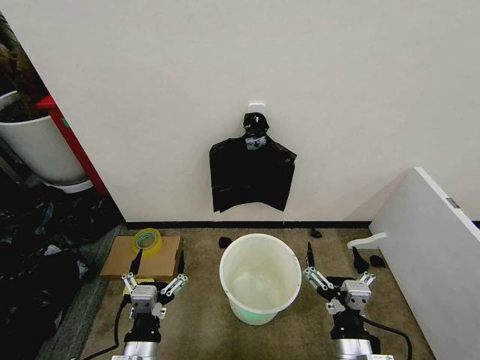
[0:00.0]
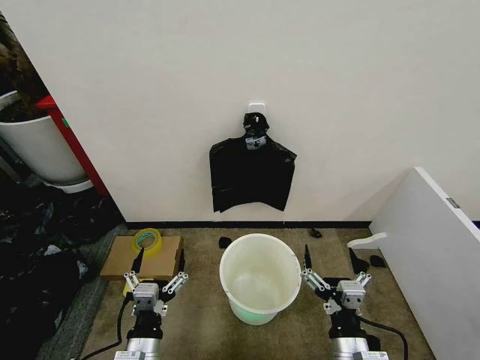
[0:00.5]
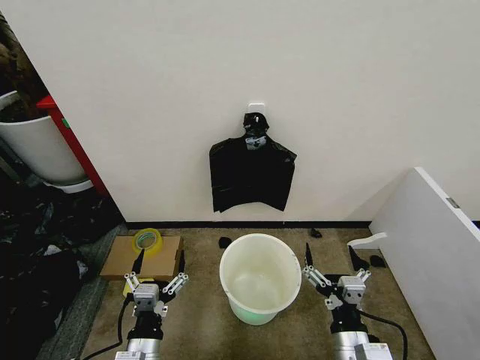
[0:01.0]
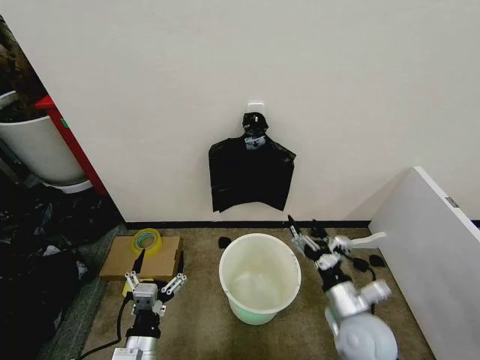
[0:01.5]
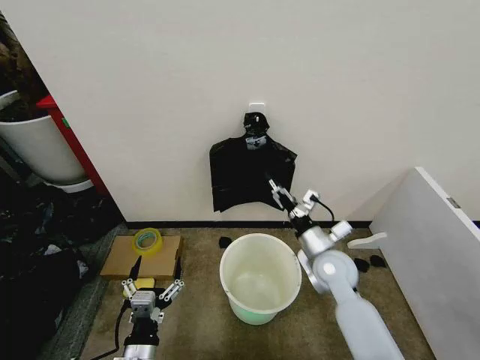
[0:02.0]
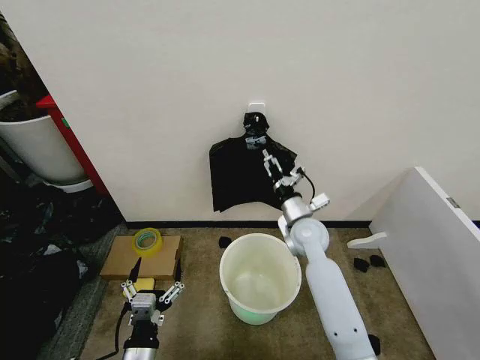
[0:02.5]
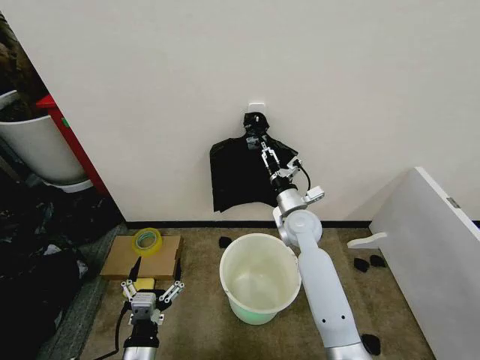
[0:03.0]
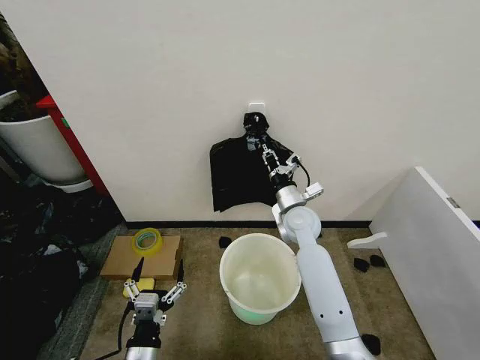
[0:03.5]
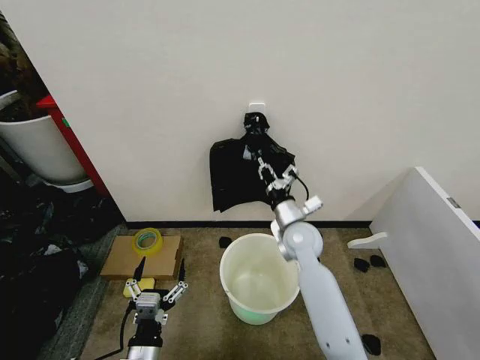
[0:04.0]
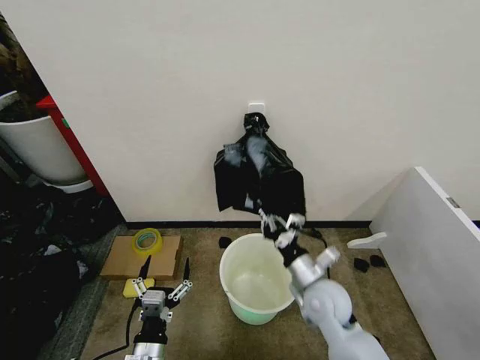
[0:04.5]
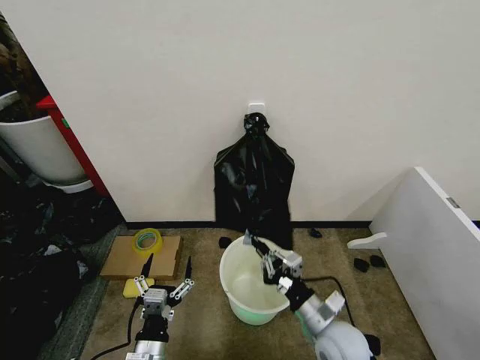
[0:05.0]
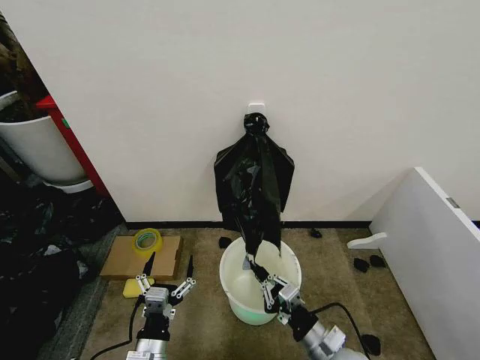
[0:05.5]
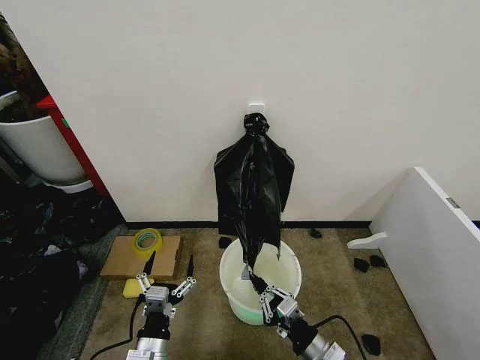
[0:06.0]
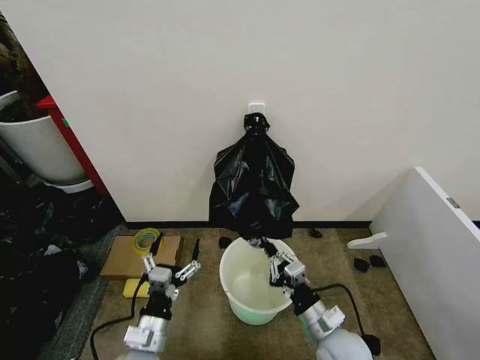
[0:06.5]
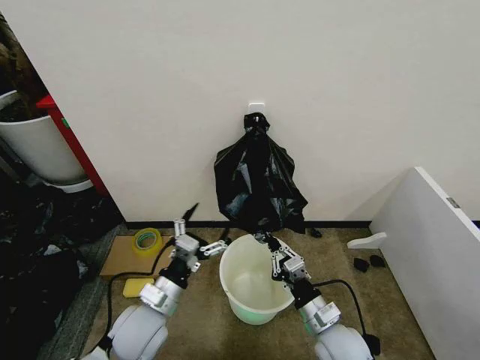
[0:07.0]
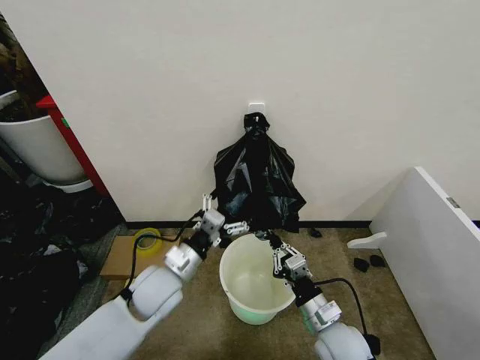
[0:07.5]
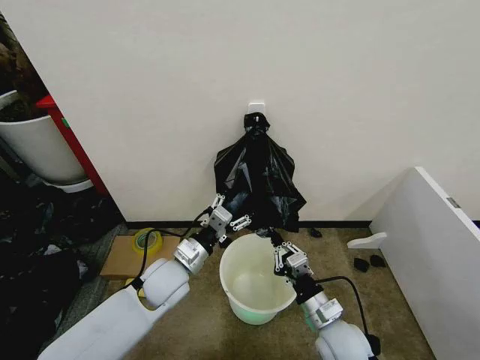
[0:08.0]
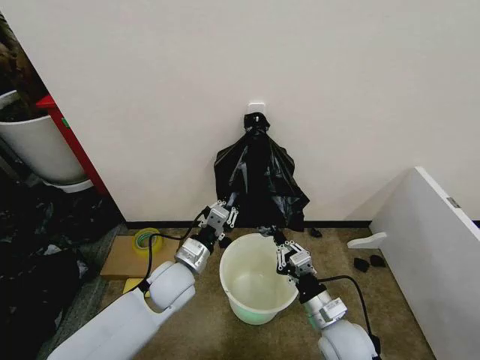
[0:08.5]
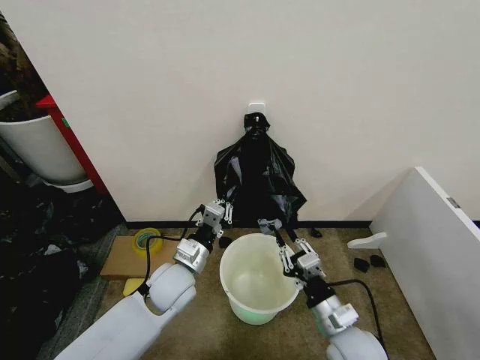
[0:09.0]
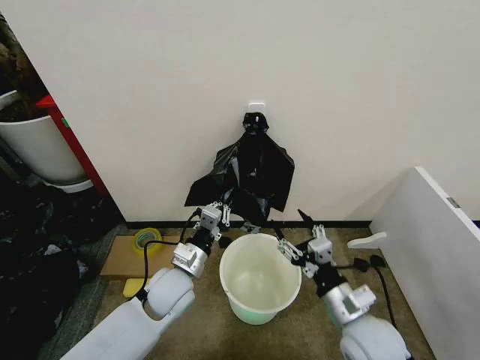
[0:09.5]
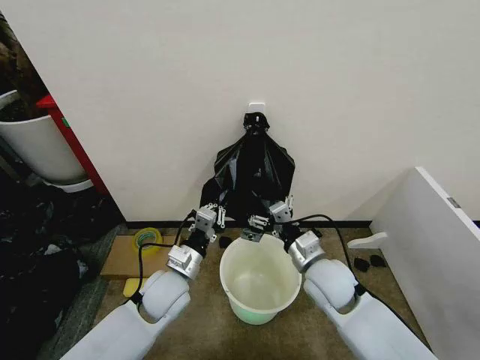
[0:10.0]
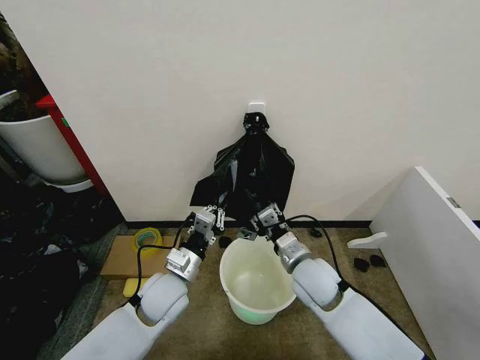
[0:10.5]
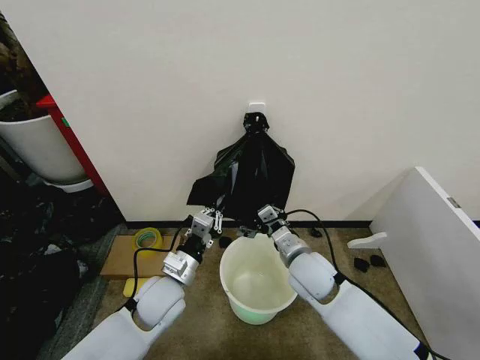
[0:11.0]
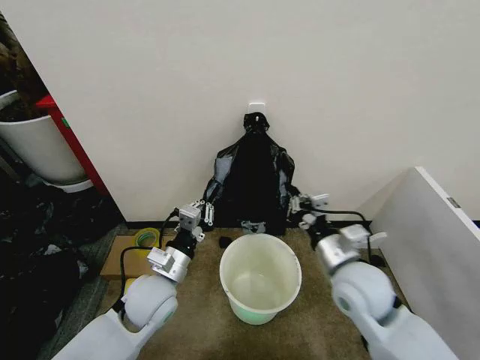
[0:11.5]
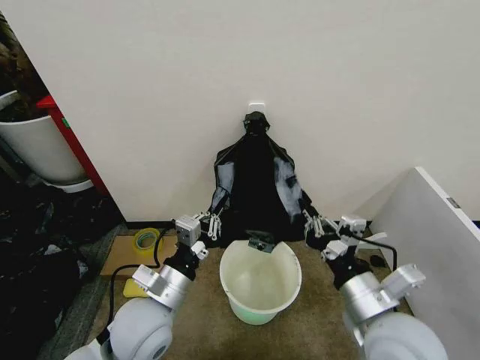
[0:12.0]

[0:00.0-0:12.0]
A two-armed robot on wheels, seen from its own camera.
Task of the whole recording: Place the garbage bag over the trash bin.
0:02.0 to 0:04.0: The right gripper travels forward and to the left by approximately 10 cm, and closes.
0:04.0 to 0:06.0: The right gripper heads backward, covering about 25 cm.
0:06.0 to 0:08.0: The right gripper is displaced forward by roughly 5 cm. Meanwhile the left gripper goes roughly 20 cm forward and upward.
0:08.0 to 0:10.0: The left gripper closes its fingers, while the right gripper shifts about 10 cm forward and upward, and opens its fingers.
0:10.0 to 0:12.0: The left gripper travels backward and upward by about 10 cm; the right gripper heads backward and upward, covering some 15 cm, and closes.

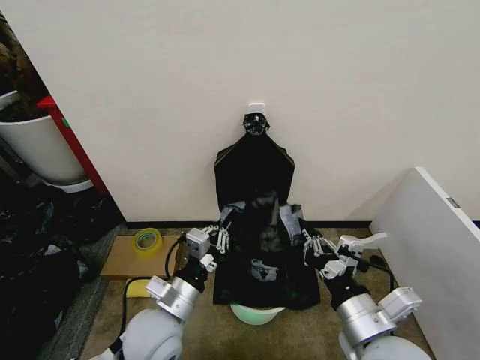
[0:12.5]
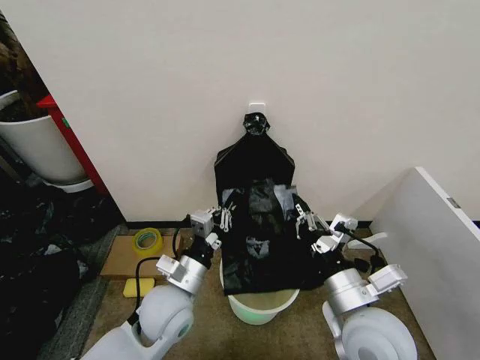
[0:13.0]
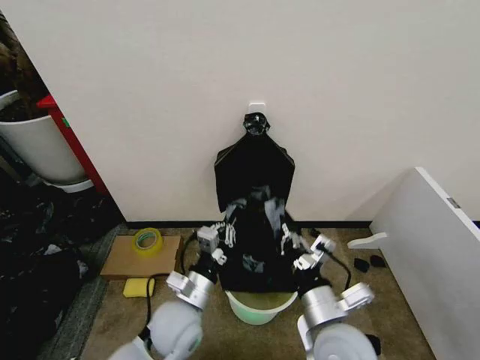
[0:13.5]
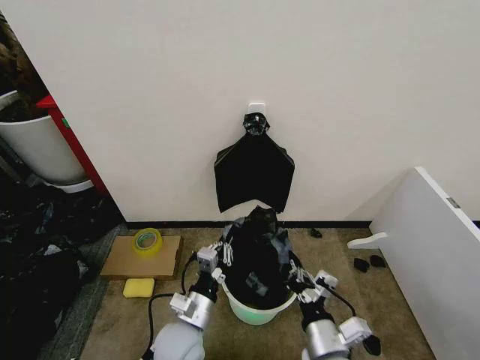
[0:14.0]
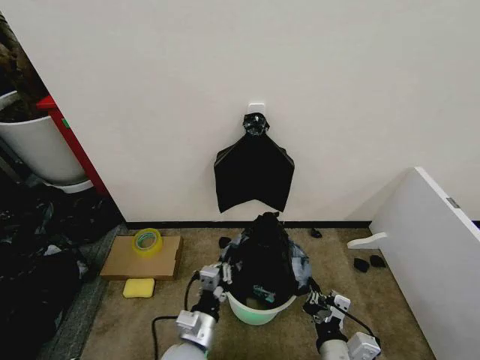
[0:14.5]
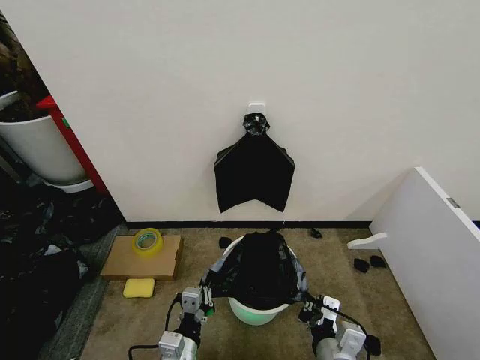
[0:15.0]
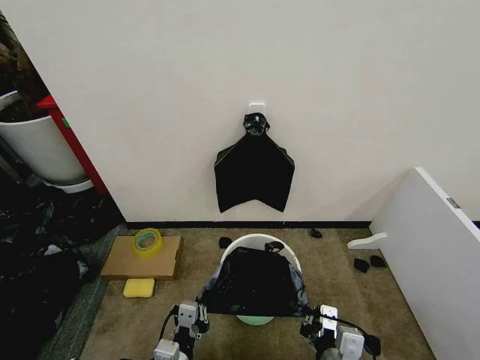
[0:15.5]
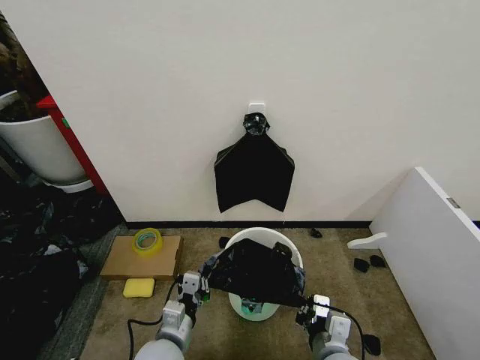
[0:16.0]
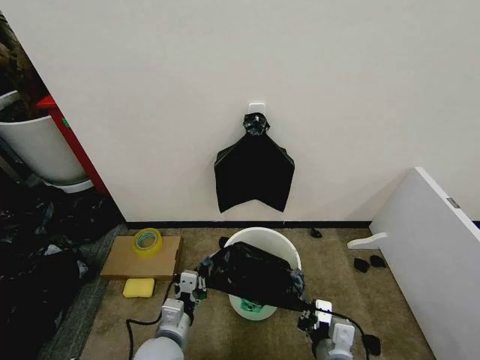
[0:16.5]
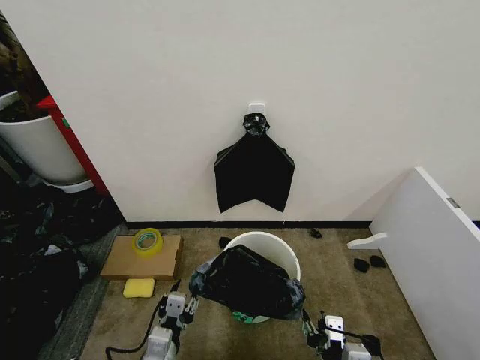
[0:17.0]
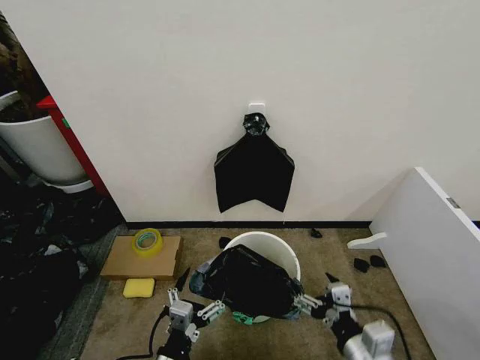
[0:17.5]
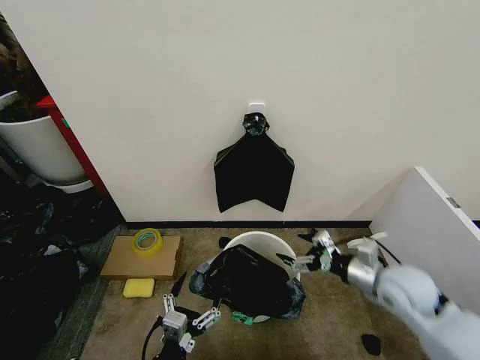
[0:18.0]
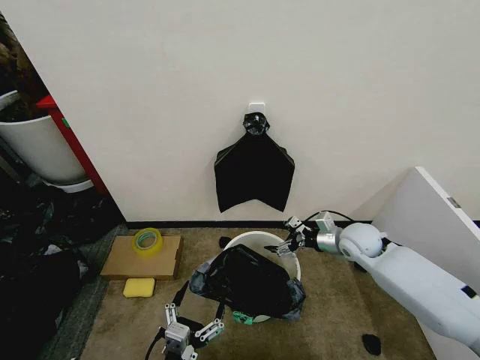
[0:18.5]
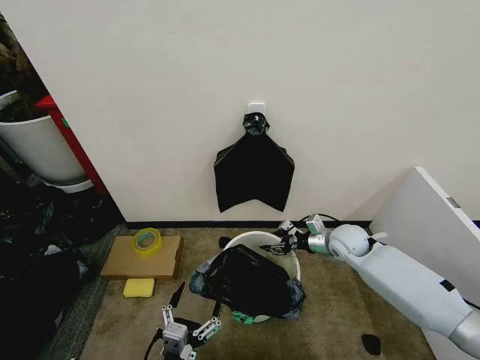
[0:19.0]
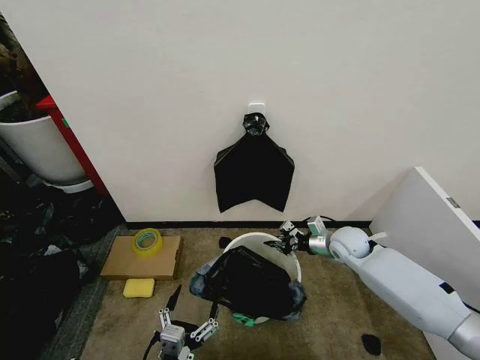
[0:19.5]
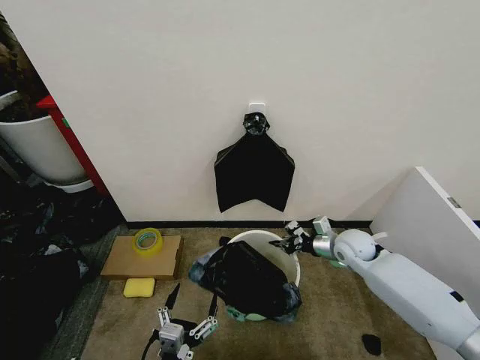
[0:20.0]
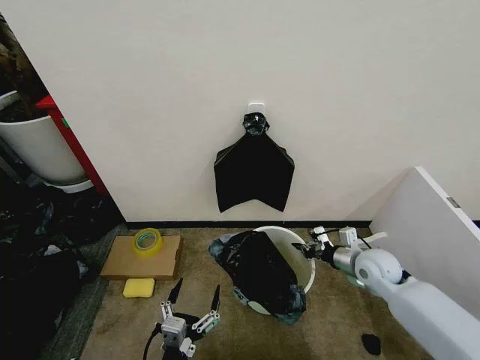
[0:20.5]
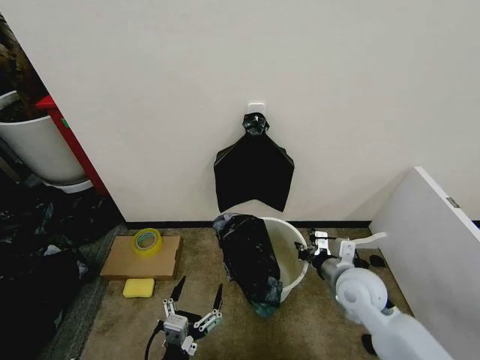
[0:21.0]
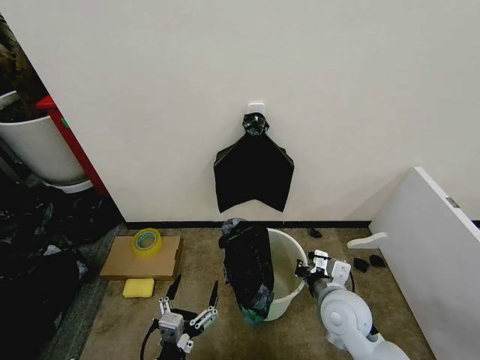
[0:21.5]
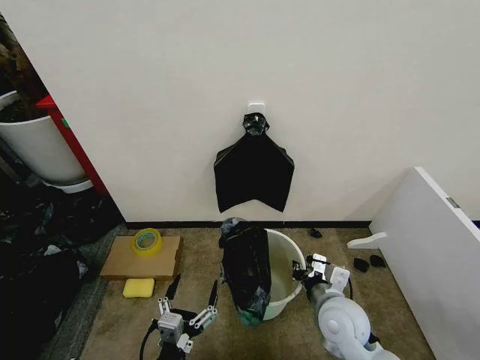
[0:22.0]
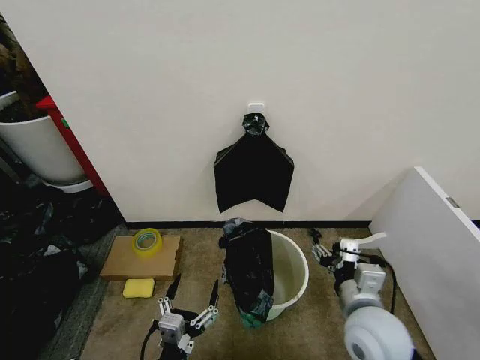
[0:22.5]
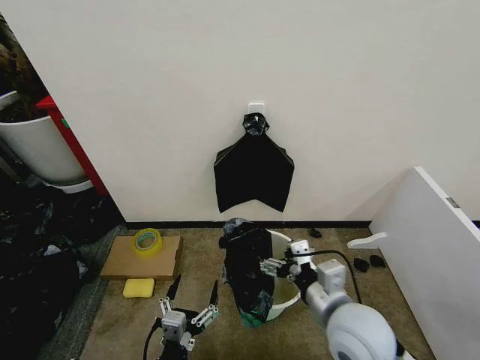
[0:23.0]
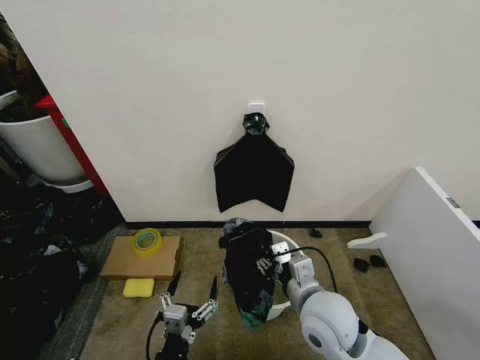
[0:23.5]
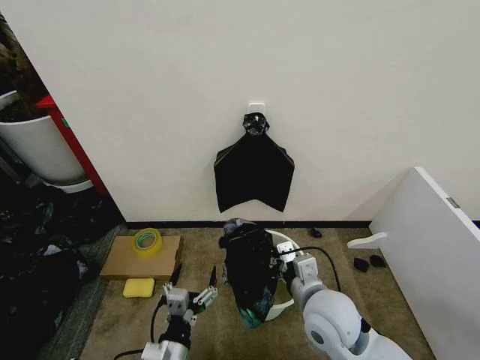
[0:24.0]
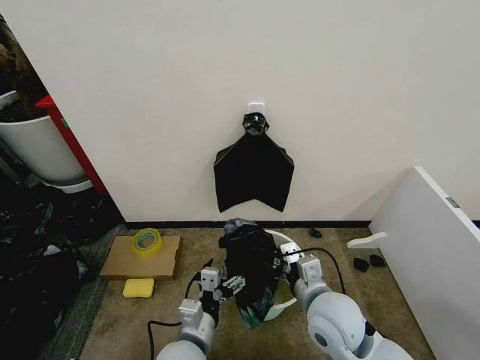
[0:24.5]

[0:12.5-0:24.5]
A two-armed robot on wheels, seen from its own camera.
Task of the whole recording: Place the garbage bag over the trash bin.
0:12.5 to 0:14.5: The two grippers go roughly 10 cm downward.
0:14.5 to 0:16.5: The left gripper is displaced to the left by approximately 5 cm, and moves about 5 cm backward and comes back.
0:16.5 to 0:18.5: The right gripper travels forward by approximately 30 cm, and opens; the left gripper moves backward, roughly 15 cm, and opens up.
0:18.5 to 0:20.5: The right gripper is displaced backward by about 5 cm, and closes.
0:20.5 to 0:22.5: The right gripper moves backward, to the left and upward, about 20 cm, and opens its fingers.
0:22.5 to 0:24.5: The left gripper goes some 10 cm forward. The right gripper heads to the left, covering roughly 5 cm, and closes.

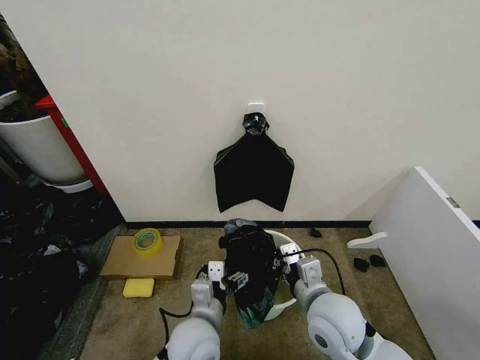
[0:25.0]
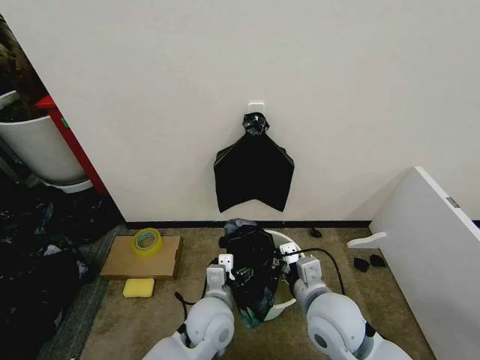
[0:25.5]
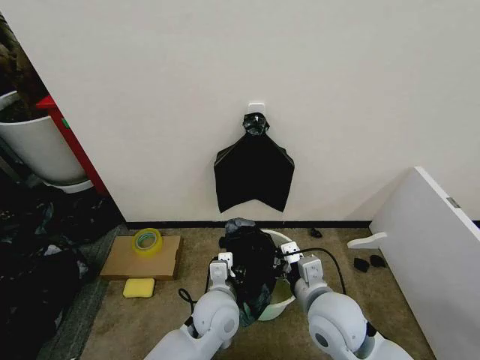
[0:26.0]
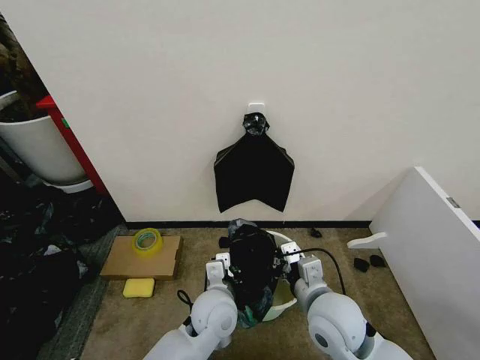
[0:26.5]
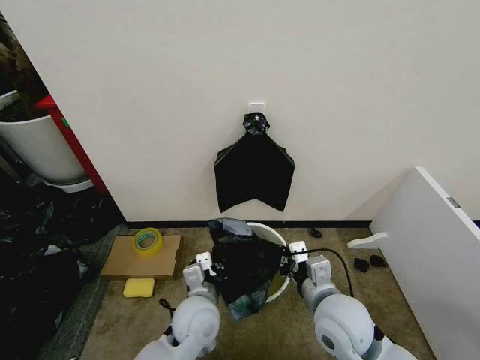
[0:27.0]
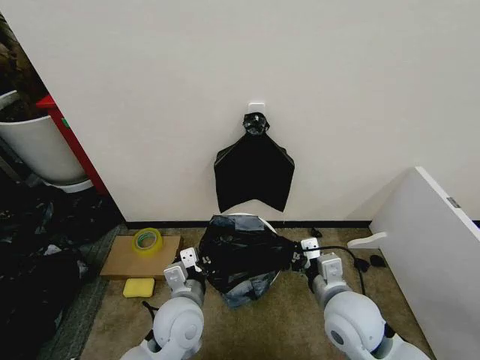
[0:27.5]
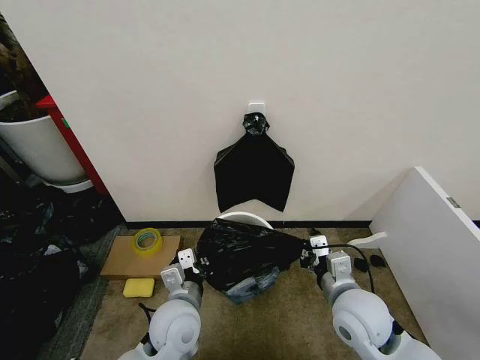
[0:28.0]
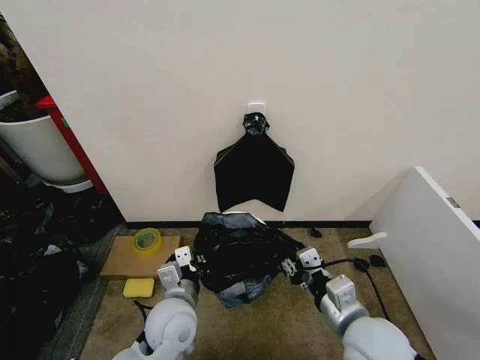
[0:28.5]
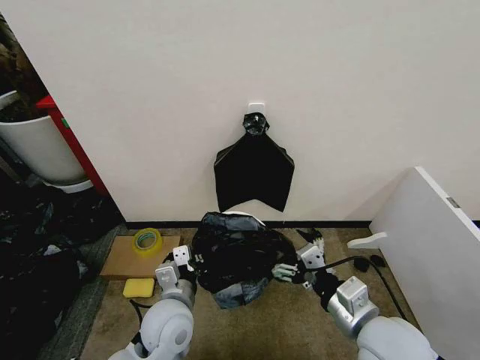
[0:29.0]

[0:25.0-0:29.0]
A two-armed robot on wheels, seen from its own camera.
Task of the whole recording: Place the garbage bag over the trash bin.
0:25.0 to 0:27.0: The left gripper closes up.
0:27.0 to 0:29.0: The left gripper shifts by roughly 5 cm. The right gripper ends up approximately 10 cm from where it was, and opens.
